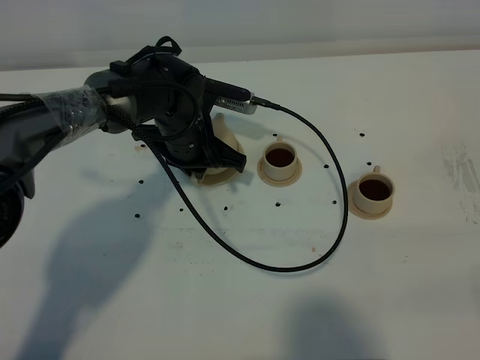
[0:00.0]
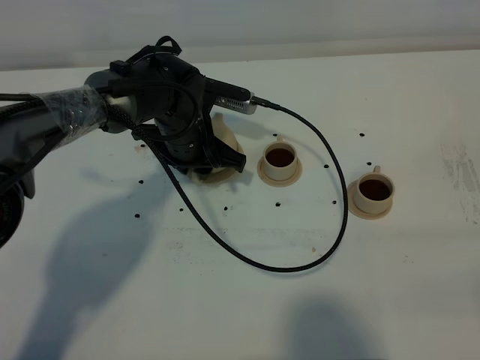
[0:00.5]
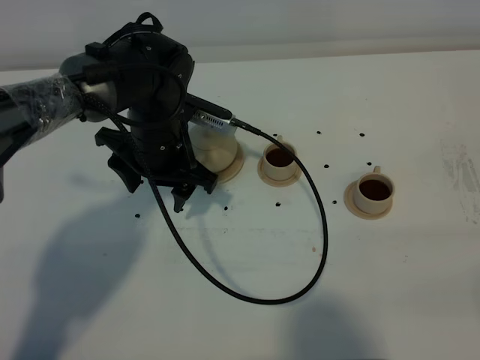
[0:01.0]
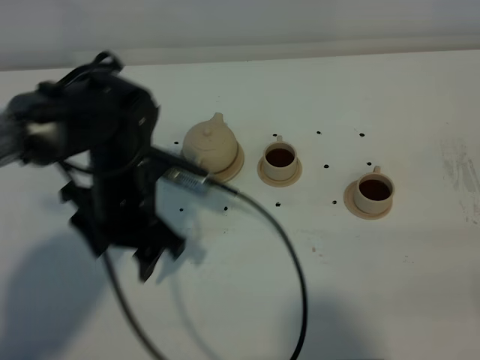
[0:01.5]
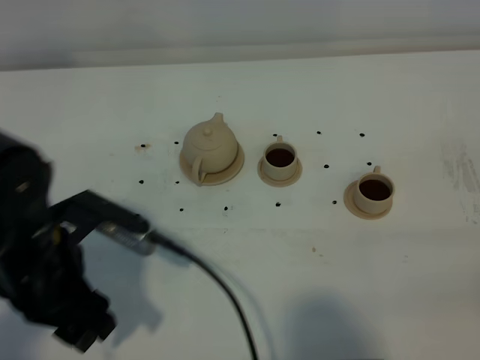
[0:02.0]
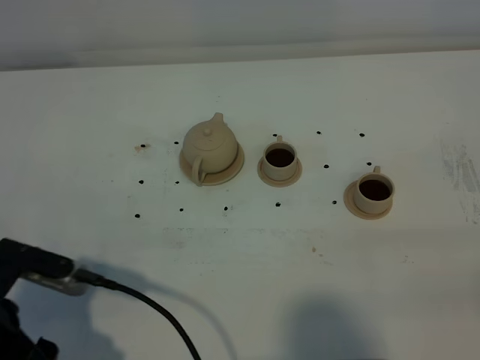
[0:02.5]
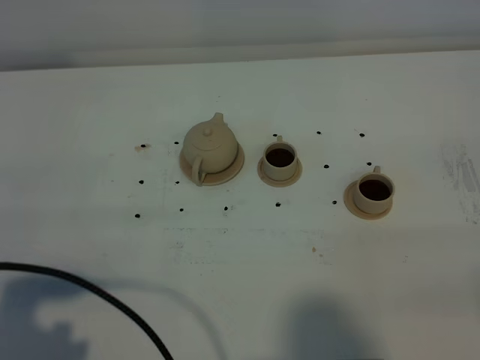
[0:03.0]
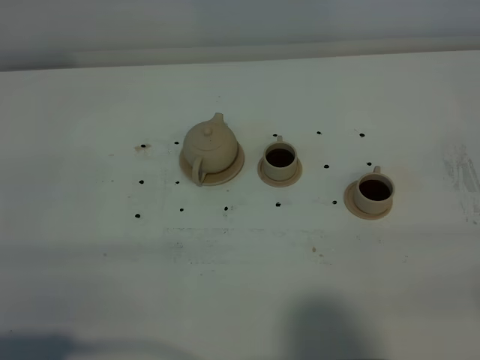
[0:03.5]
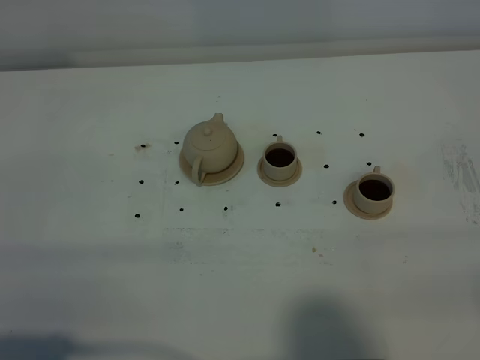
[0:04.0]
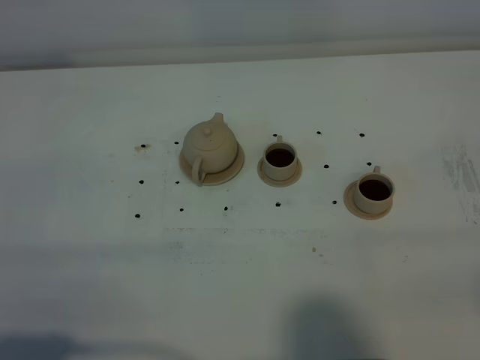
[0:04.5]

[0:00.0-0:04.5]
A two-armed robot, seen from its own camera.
Task of the whole recording: grasp the brown teapot and pour the tea into the two brown teacups one by one, put the brown teapot back in its original place.
0:00.0 to 0:02.0: The left gripper goes roughly 25 cm backward and to the left, and opens up.
0:02.0 to 0:04.5: The left gripper moves backward and to the left, approximately 20 cm.

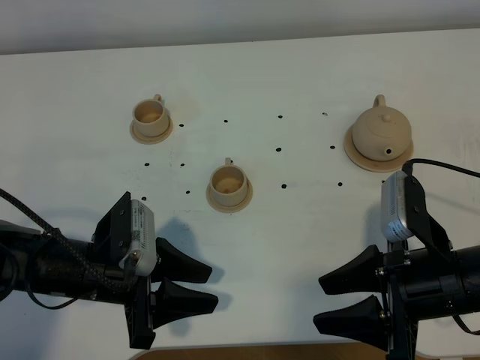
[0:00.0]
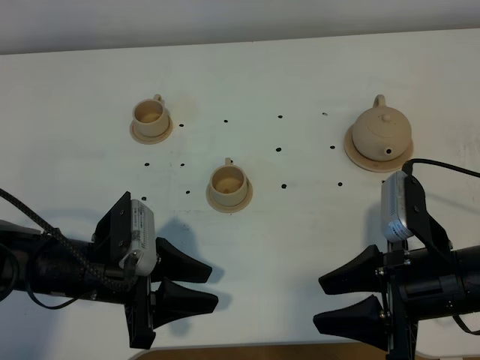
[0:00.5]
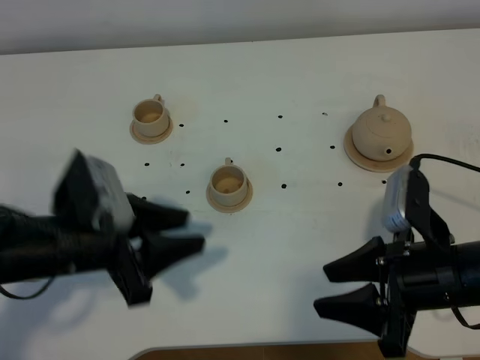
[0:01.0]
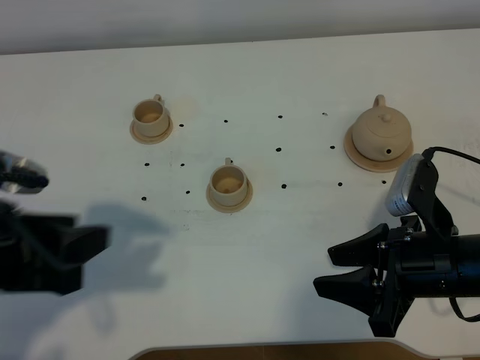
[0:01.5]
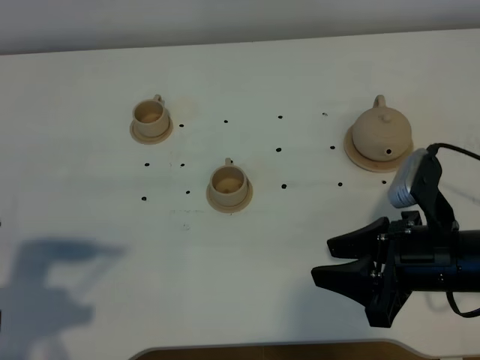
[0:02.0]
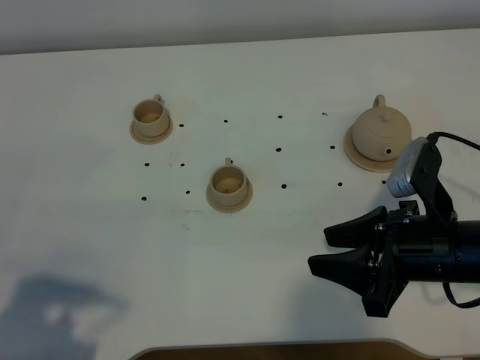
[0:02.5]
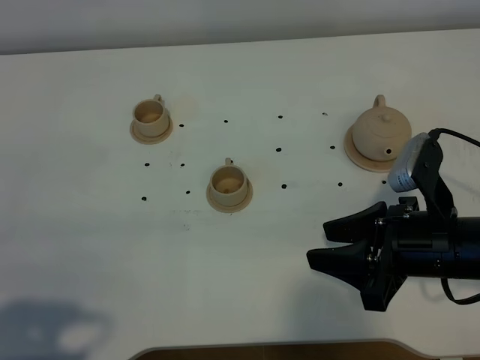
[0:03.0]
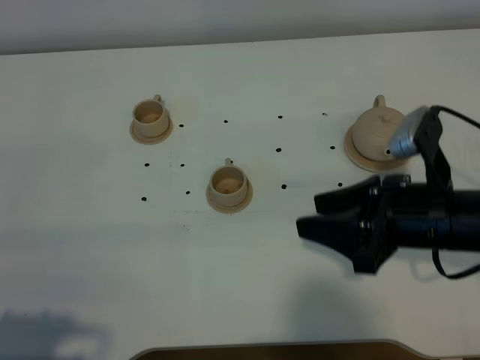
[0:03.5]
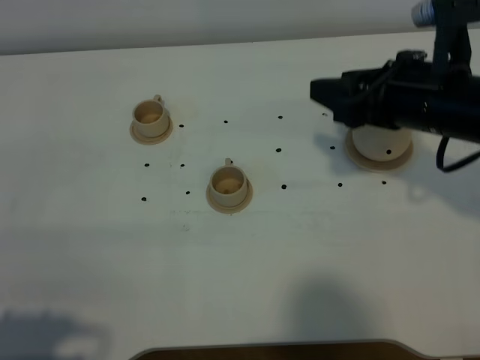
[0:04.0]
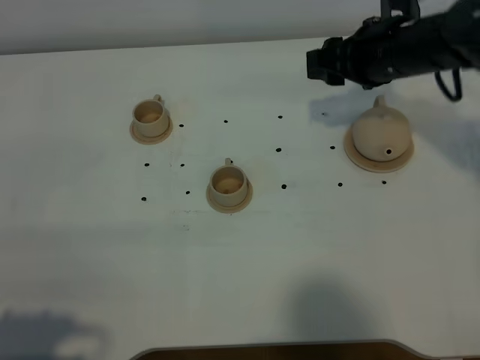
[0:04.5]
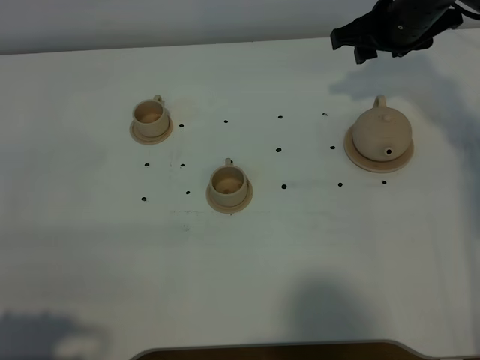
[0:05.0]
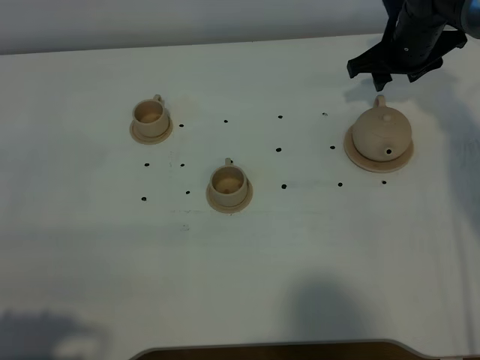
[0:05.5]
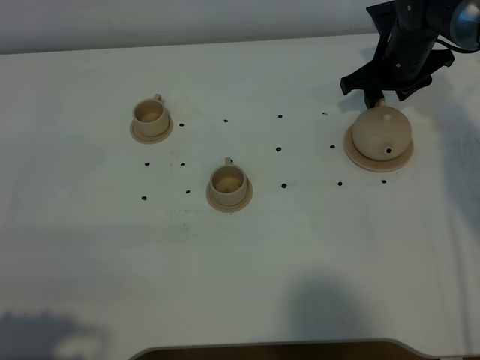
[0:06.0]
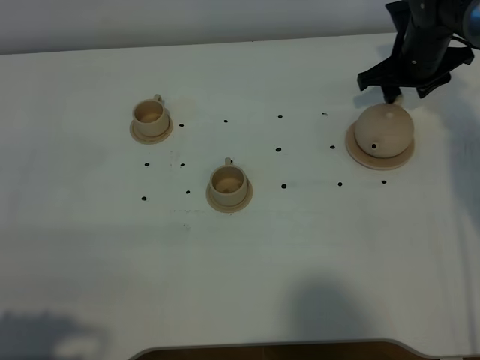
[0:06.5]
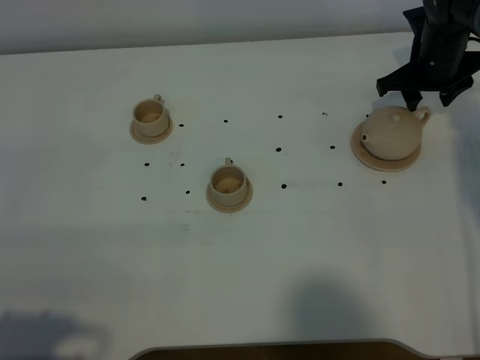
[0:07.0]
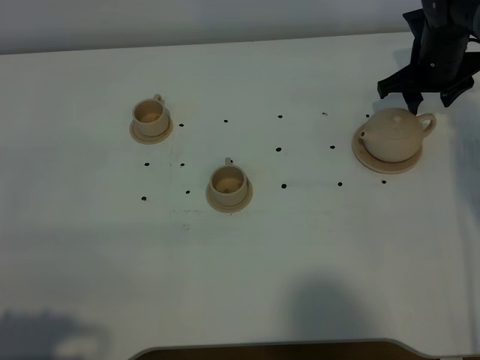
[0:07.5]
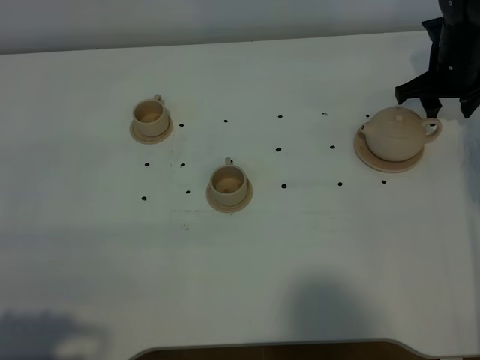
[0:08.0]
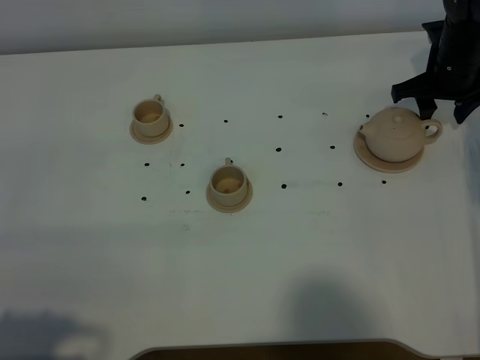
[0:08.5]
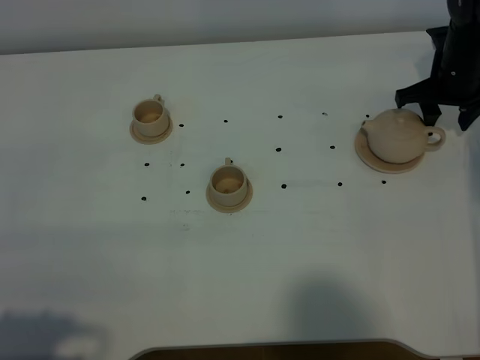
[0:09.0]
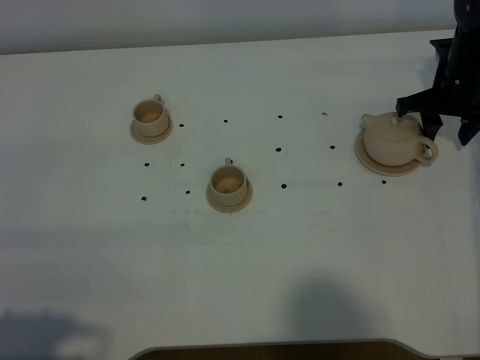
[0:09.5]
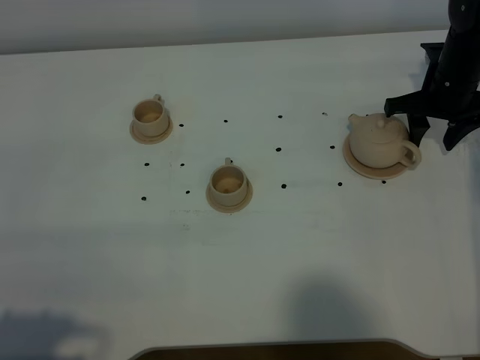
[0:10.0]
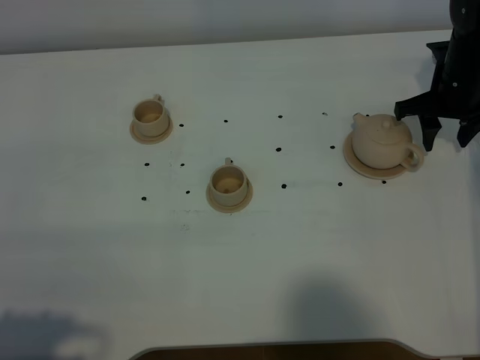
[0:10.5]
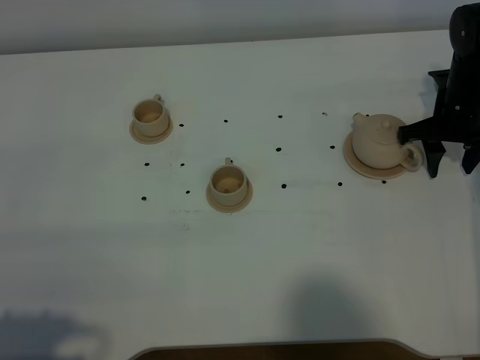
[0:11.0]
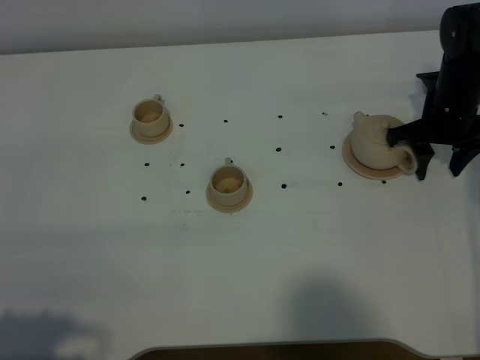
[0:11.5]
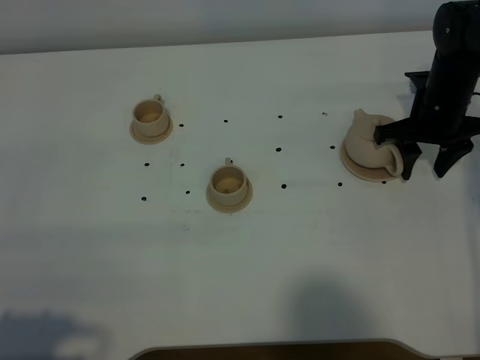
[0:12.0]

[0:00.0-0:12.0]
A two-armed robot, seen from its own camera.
Task of the whole recording: grasp the brown teapot and pour the tea into the two brown teacups one by one, put the brown teapot back in its original place.
0:00.0 to 0:02.0: The left gripper is displaced upward, to the left and backward by some 20 cm.
0:02.0 to 0:04.0: The left gripper moves backward, about 10 cm. The right gripper travels forward and upward by some 15 cm.
0:04.0 to 0:06.0: The right gripper heads forward and downward, covering some 20 cm.
0:06.0 to 0:08.0: The right gripper moves to the right, about 5 cm.
0:08.0 to 0:10.0: There are only small adjustments of the grippers.
0:10.0 to 0:12.0: The grippers make only small movements.

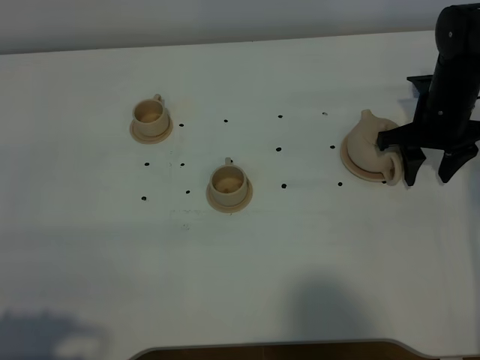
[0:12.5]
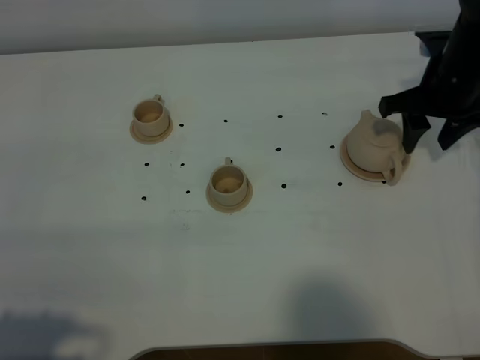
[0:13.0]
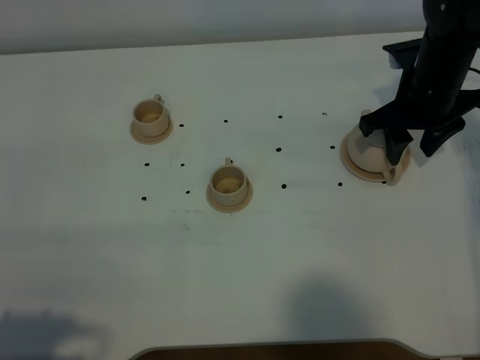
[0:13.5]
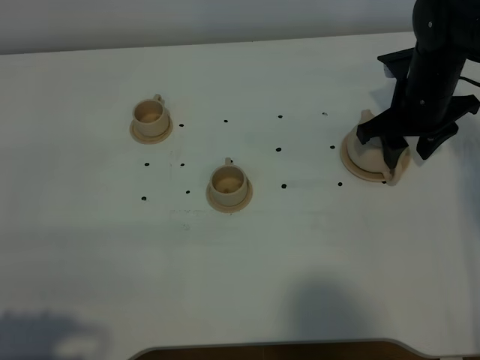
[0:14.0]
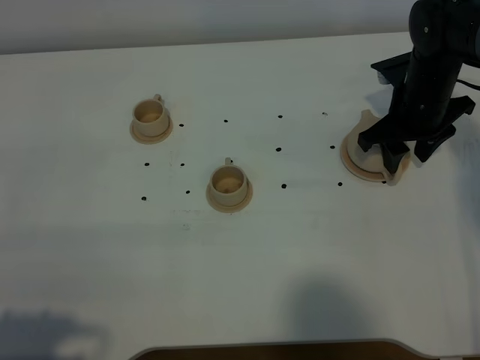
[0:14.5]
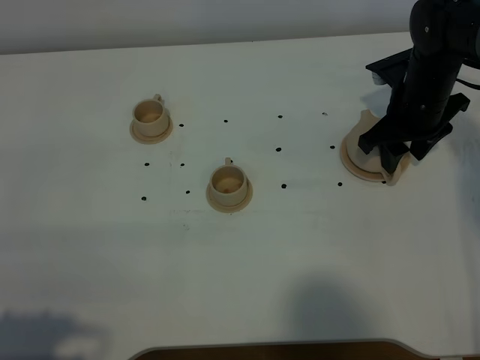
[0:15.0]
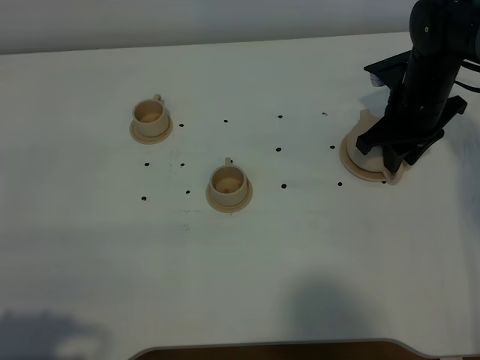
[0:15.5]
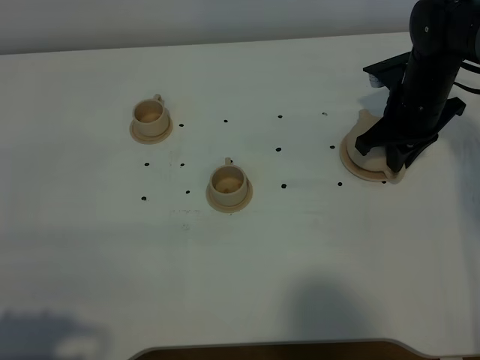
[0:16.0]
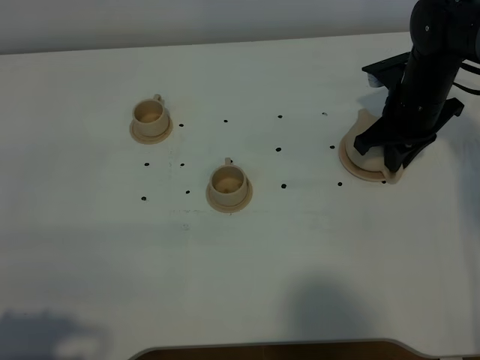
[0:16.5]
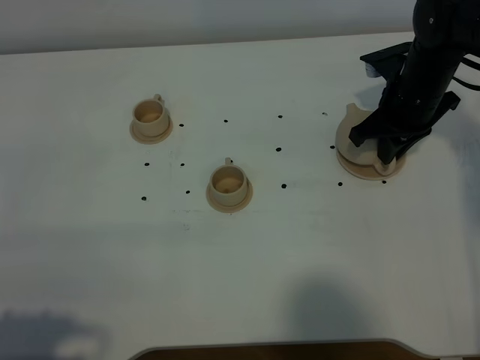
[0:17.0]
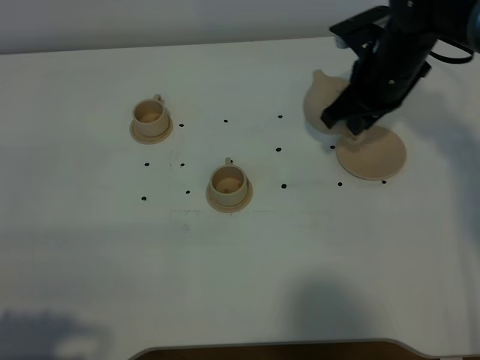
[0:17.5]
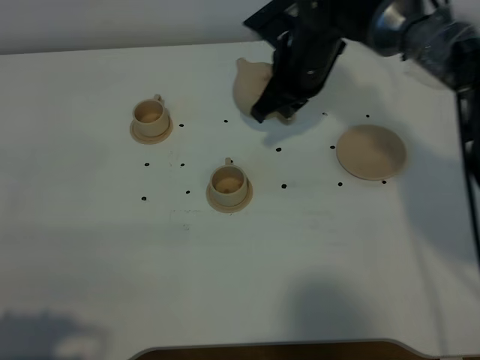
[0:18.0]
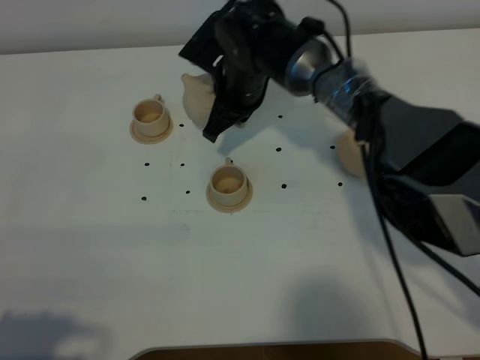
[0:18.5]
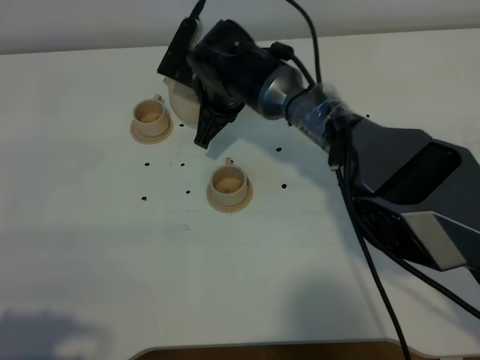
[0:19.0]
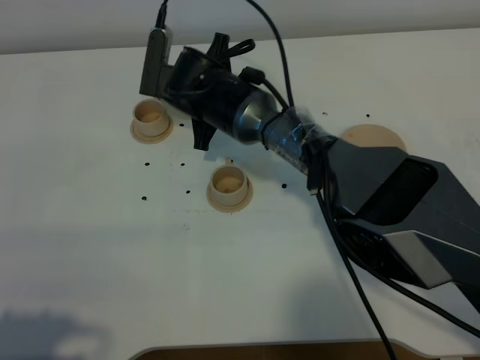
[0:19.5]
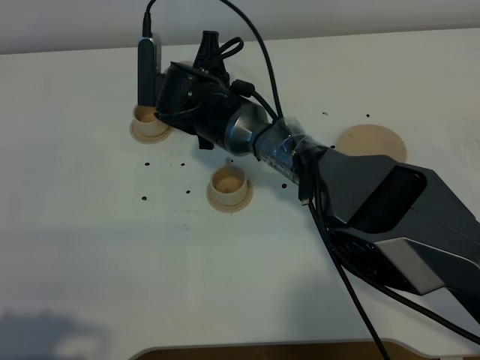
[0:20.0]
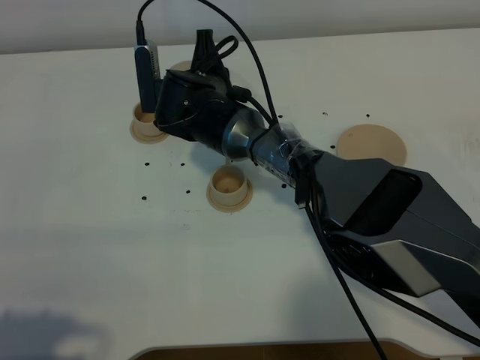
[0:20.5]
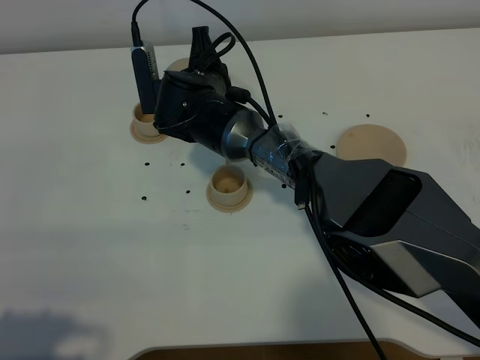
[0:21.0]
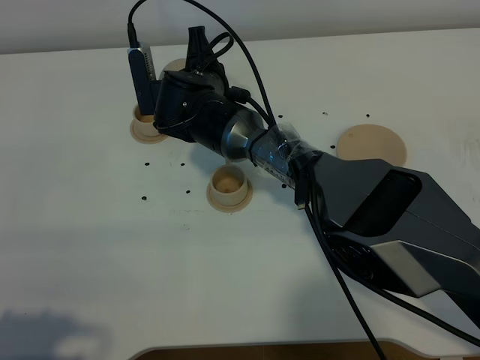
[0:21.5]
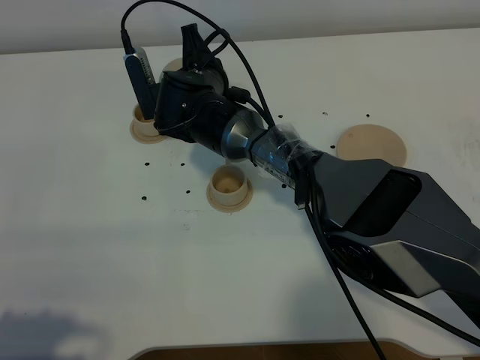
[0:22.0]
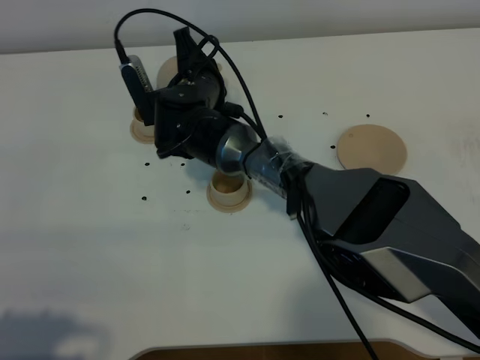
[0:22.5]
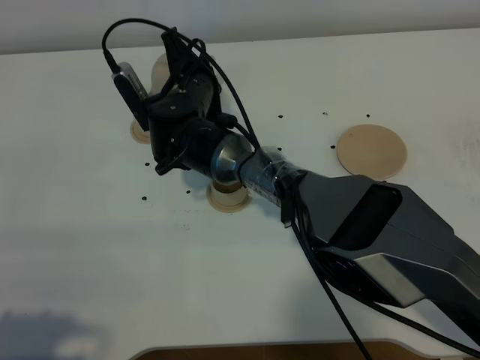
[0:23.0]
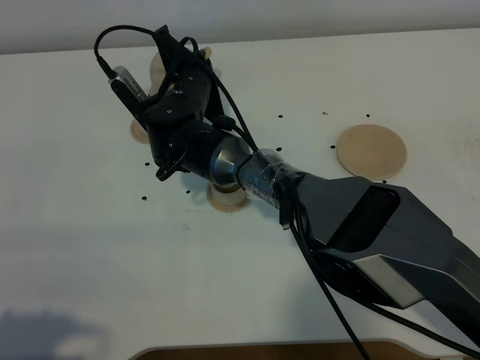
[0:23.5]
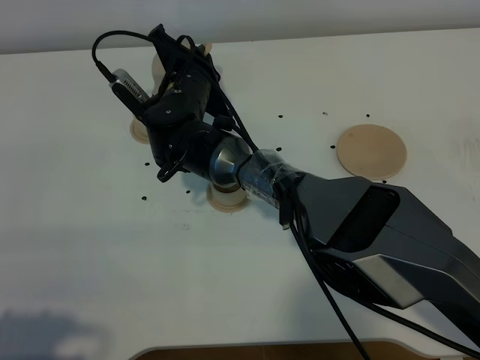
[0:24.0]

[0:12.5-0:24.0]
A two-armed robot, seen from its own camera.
Task of the whole recording: grasp the brown teapot and pour the tea into the two brown teacups one by one, put the brown teapot back in its original place.
Step, 0:12.5 to 0:17.0: Pick up the teapot with the right gripper.
0:14.5 to 0:16.5: The right gripper closes.
0:16.5 to 0:18.5: The right gripper travels to the left by approximately 20 cm.
0:18.5 to 0:20.0: The right gripper moves to the left, roughly 5 cm.
0:20.0 to 0:22.0: There are only small adjustments of the grippers.
